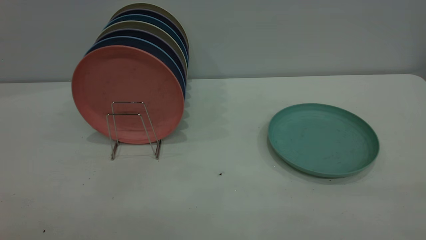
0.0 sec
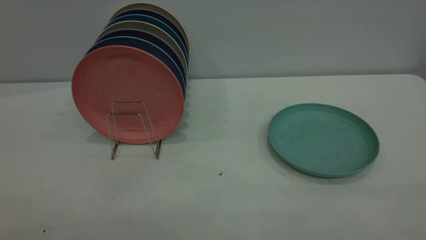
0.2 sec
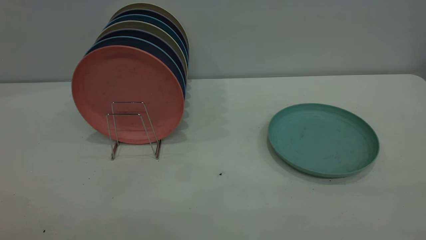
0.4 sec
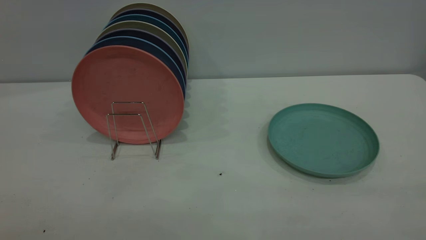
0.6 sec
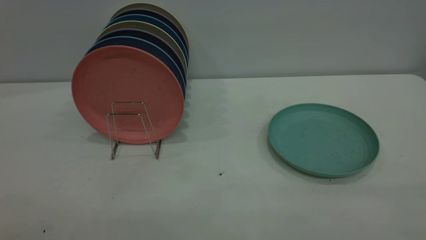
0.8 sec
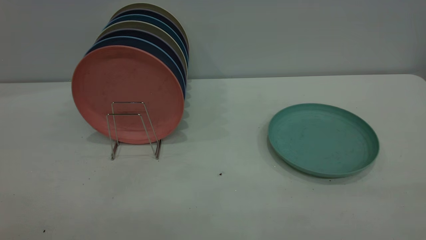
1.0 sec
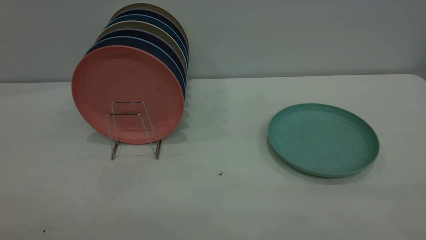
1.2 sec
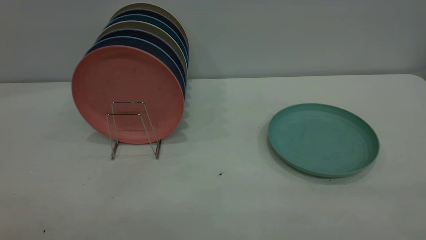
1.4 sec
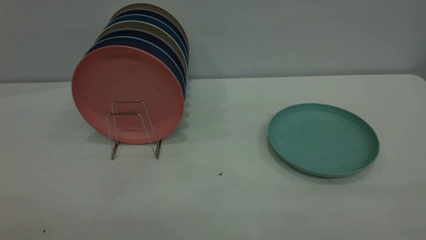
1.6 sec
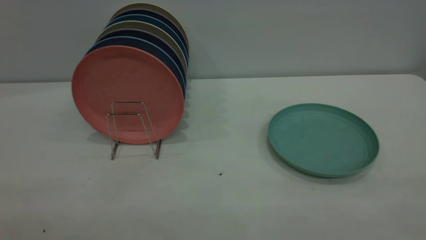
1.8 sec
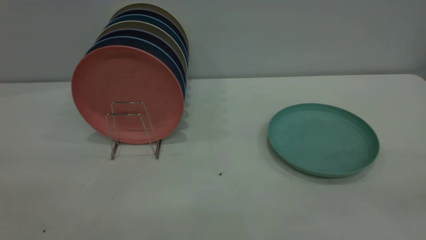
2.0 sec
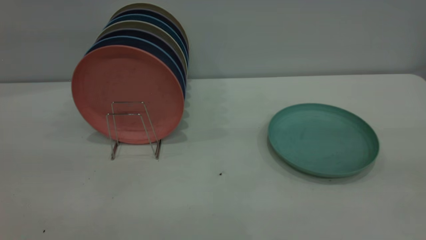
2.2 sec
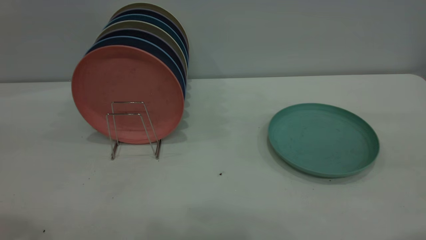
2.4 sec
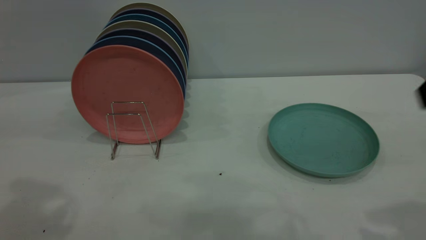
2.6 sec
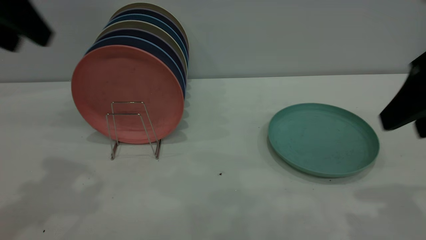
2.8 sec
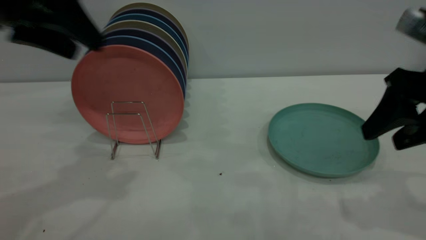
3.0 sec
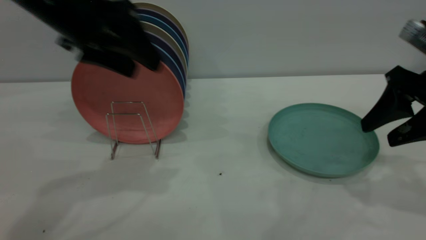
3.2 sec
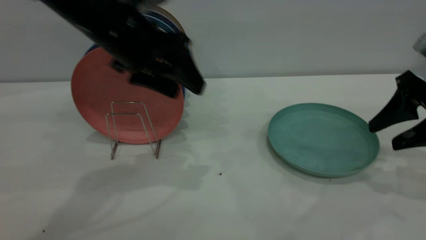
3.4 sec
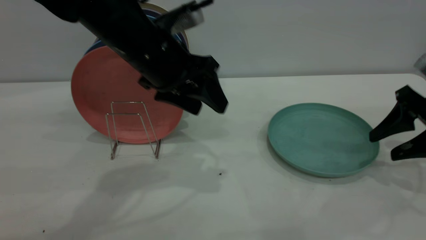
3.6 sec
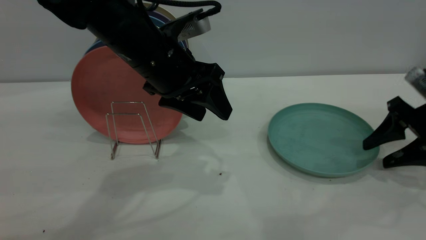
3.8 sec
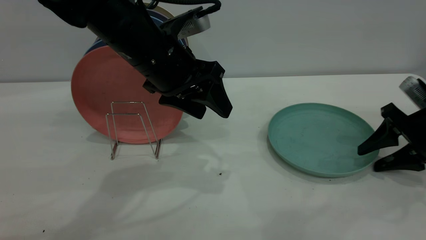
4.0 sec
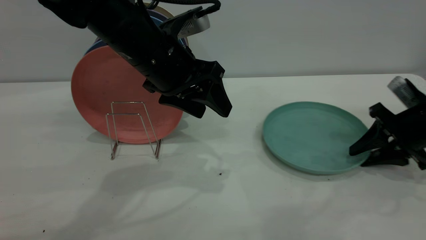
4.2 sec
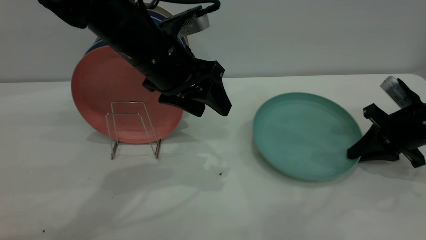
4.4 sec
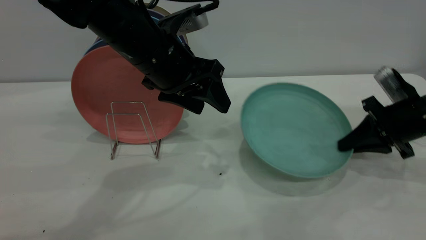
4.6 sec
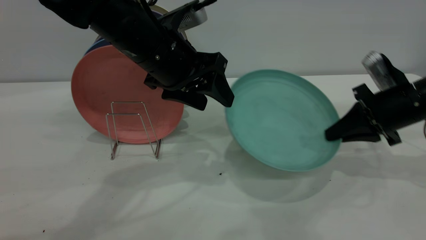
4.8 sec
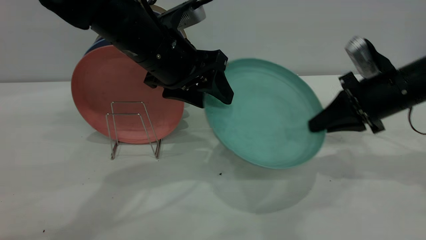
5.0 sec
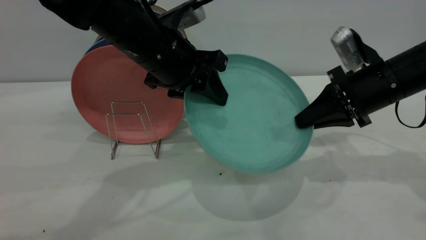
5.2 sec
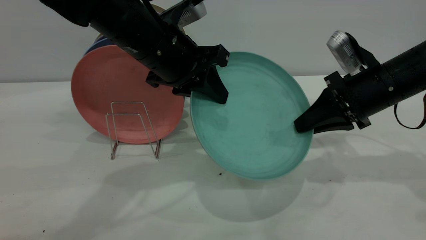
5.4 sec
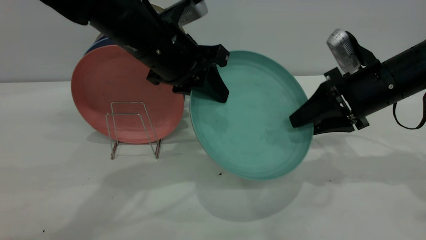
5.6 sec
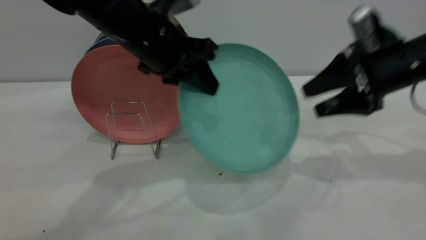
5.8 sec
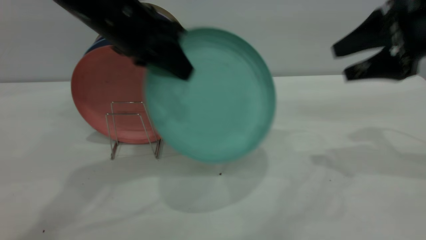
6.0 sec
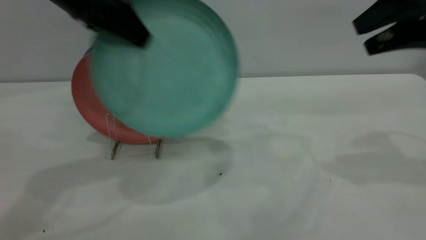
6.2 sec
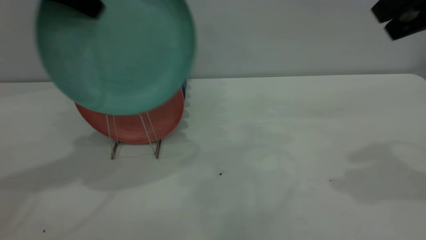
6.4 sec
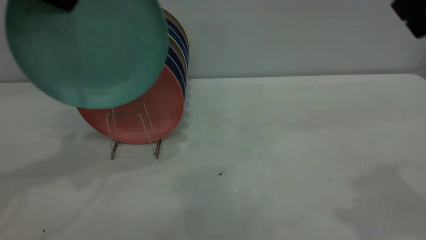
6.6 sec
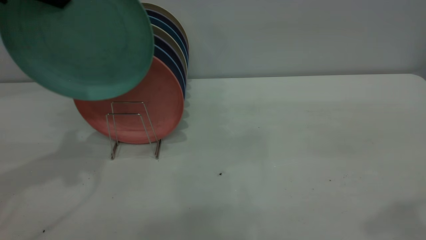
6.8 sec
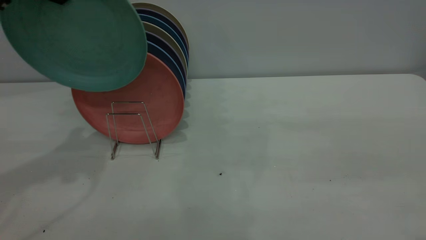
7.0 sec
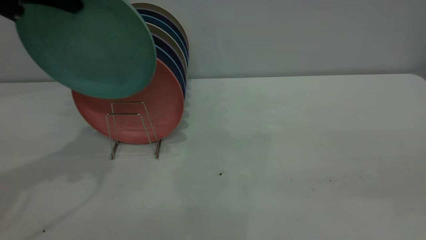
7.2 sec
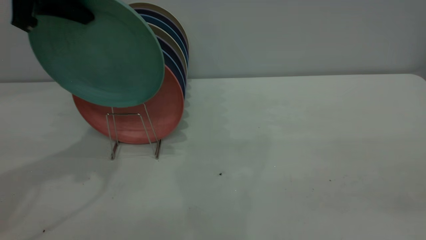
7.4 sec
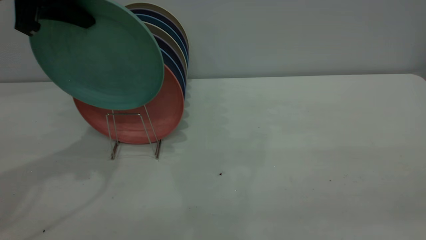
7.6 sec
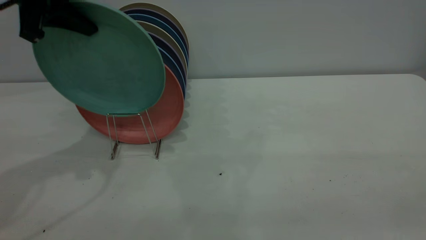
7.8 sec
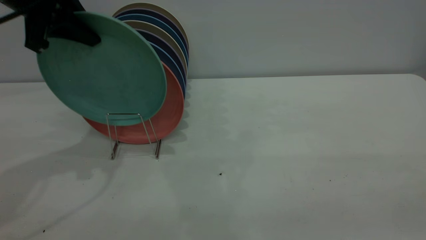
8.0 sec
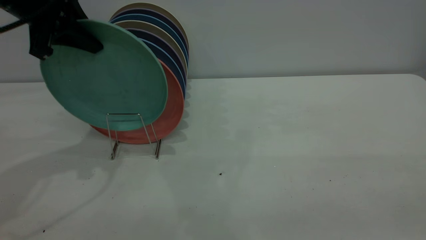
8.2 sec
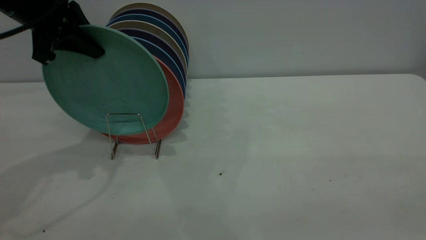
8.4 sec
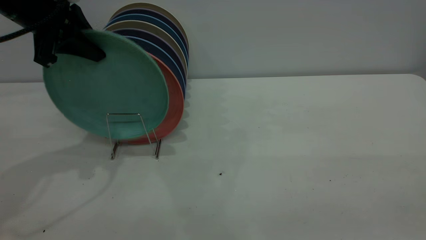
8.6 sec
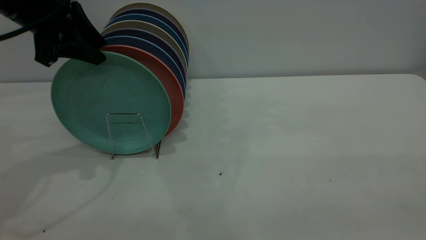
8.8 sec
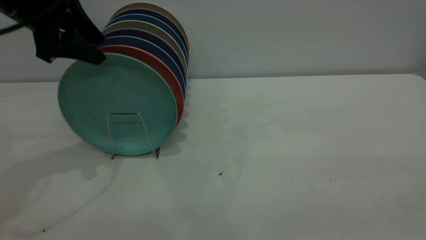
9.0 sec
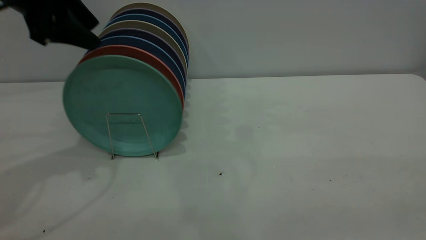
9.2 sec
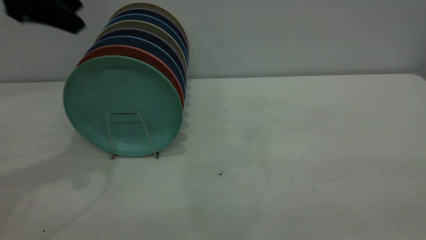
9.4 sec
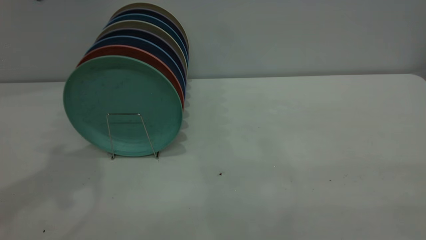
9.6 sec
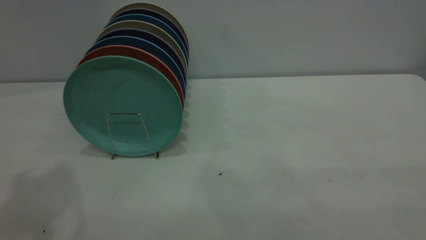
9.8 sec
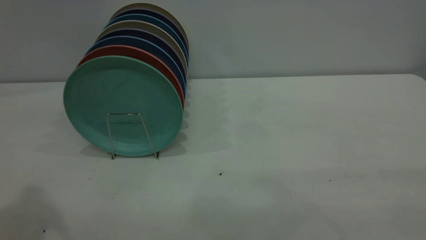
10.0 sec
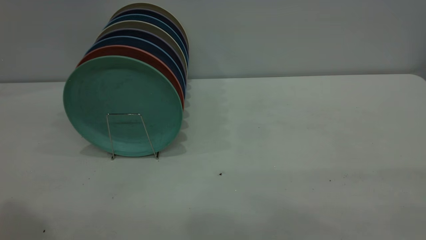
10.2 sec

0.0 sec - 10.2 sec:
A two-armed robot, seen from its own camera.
Task of the whole recording: the right gripper grasp the green plate, the right gripper pass the green plate to the left gripper, and the left gripper place the green plate on the plate rack.
Step, 0.0 sec - 4.6 sec: Pick up the plate with the right gripper.
Step, 4.8 sec - 5.6 sec: Pass the plate from the right gripper to the left gripper.
Step, 5.8 sec - 9.2 sec: Place the plate on the shelf.
0.0 sec - 1.4 sec: Both grippers stay put.
1.4 sec - 3.0 sec: The left gripper is displaced forward by roughly 35 cm. The right gripper shifts roughly 30 cm forward and downward.
3.0 sec - 4.4 sec: The right gripper heads downward and forward, covering about 15 cm, and closes its fingers, while the left gripper is displaced to the right and downward by some 15 cm.
4.4 sec - 5.8 sec: The left gripper closes its fingers; the right gripper goes some 10 cm upward and to the left, and opens up.
5.8 sec - 7.2 sec: The right gripper heads backward and upward, covering some 30 cm, while the left gripper heads to the left and upward, covering some 20 cm.
7.2 sec - 8.8 sec: The left gripper moves downward, about 5 cm, and opens its fingers.
8.8 sec - 10.2 sec: The left gripper moves backward and upward, roughly 30 cm.
